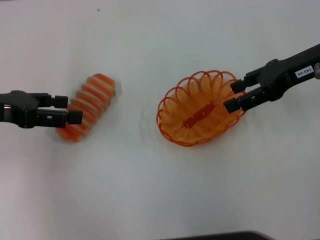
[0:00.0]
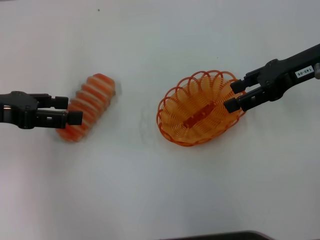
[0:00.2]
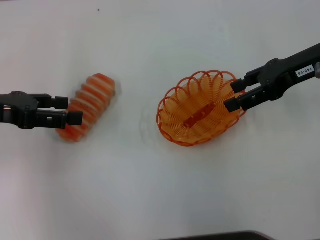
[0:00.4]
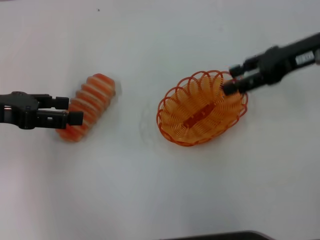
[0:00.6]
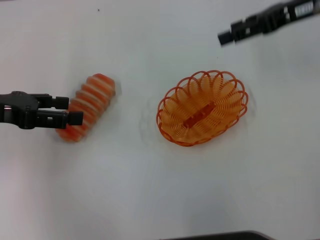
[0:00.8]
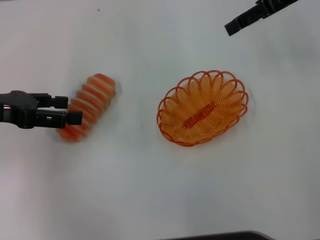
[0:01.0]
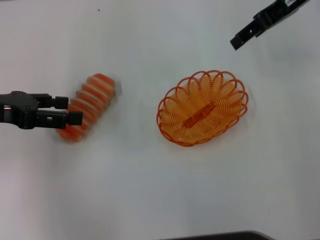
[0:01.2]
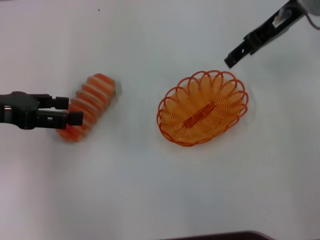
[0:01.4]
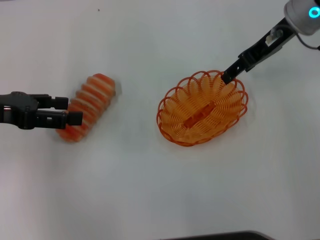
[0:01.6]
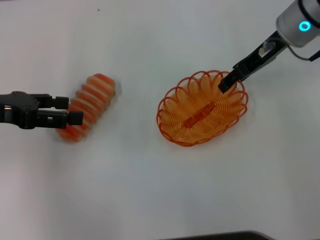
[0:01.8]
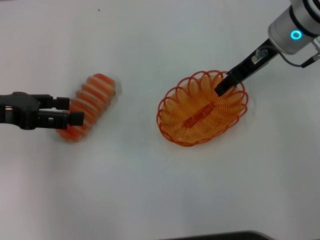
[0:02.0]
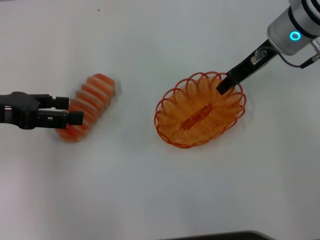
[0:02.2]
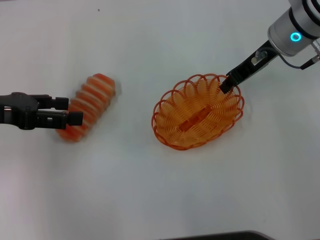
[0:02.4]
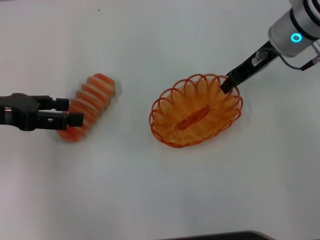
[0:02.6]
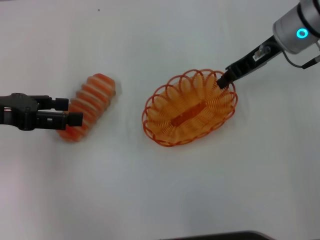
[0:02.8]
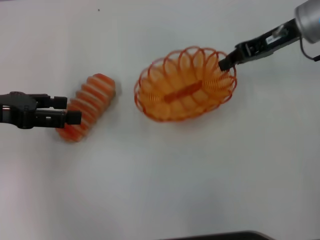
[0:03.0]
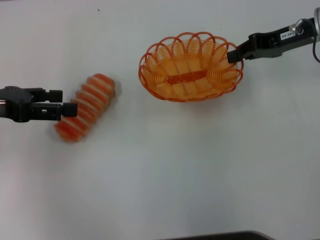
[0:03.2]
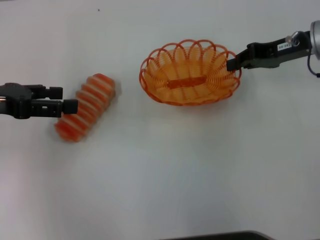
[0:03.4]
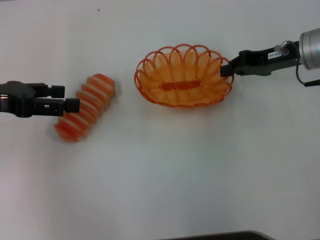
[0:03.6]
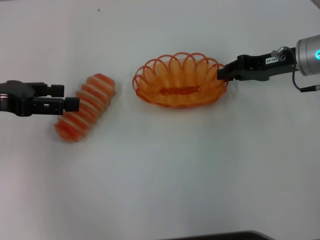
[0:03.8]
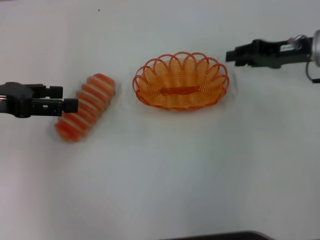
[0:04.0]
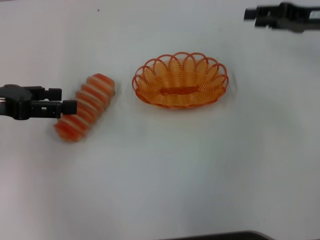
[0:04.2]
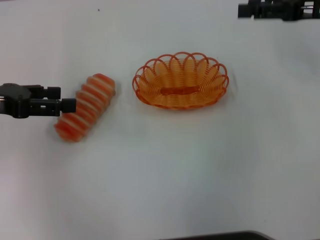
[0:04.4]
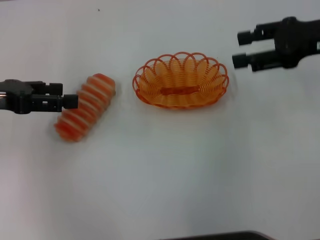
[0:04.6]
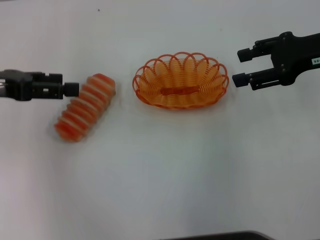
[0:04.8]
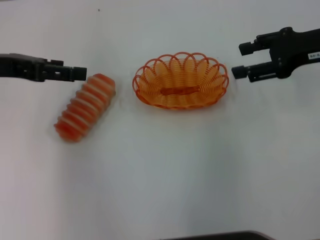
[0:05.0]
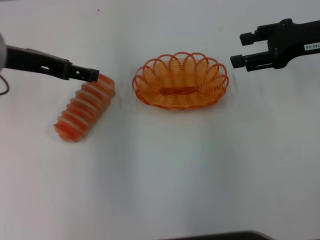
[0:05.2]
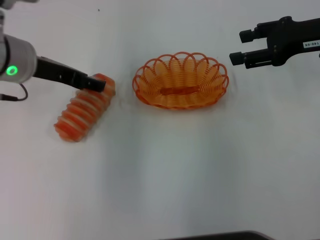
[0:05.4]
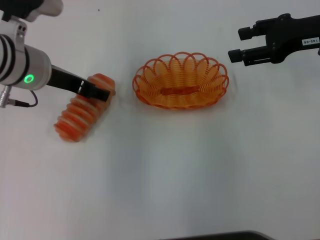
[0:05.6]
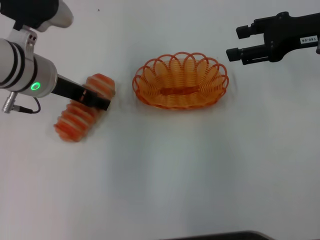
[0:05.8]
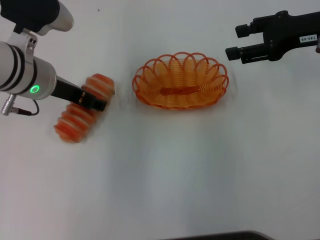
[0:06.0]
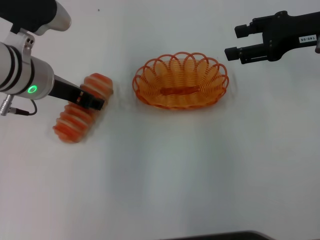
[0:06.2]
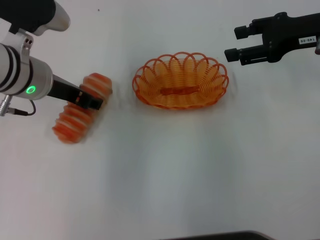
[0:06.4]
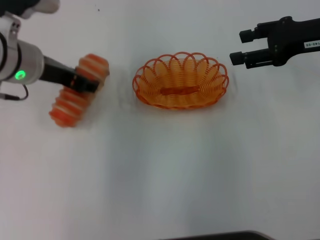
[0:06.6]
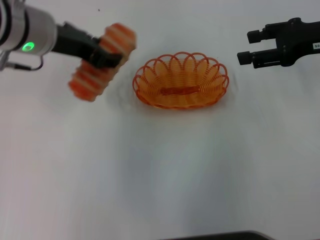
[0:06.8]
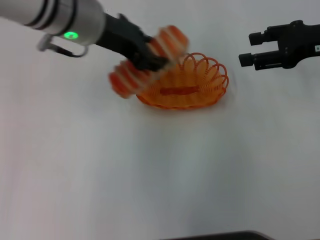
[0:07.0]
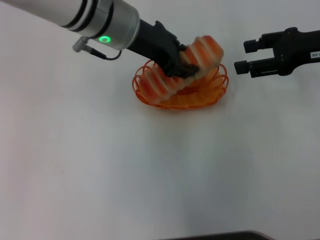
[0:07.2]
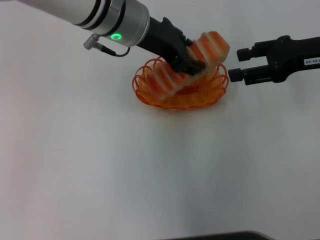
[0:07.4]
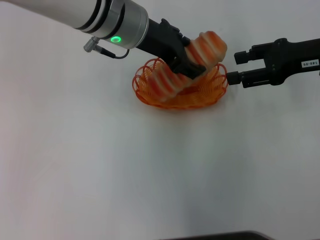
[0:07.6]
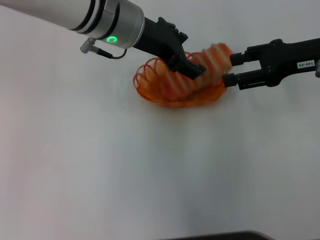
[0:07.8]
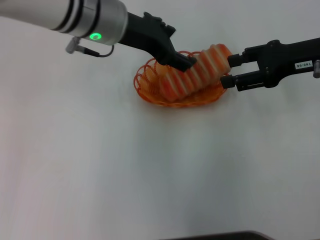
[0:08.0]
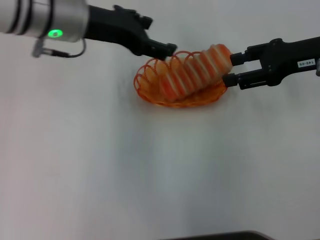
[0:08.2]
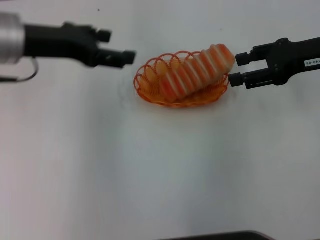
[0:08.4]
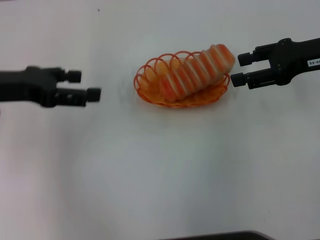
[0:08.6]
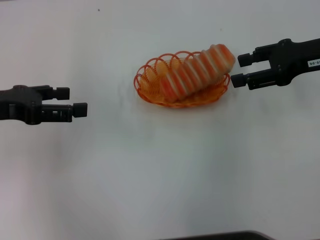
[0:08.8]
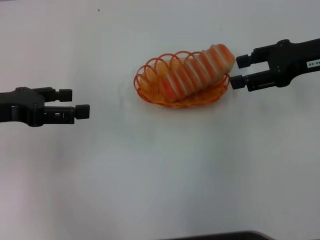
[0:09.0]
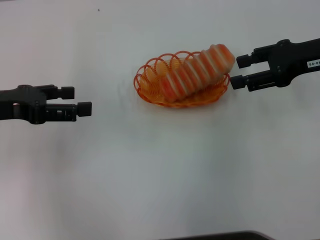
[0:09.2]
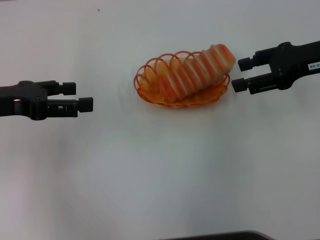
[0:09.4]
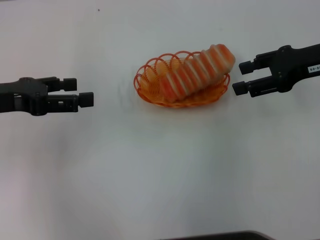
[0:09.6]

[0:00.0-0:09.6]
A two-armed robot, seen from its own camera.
Step, 0:00.0 to 0:02.8: Pick up the basket with the right gripper.
Step, 0:03.0 to 0:03.8: Place the basket in the center of view with the right gripper.
Step, 0:04.0 to 0:06.4: Pick up the long bread with the left gripper.
Step, 0:06.8 to 0:08.2: Place the long bread into the basket with the left gripper.
0:00.0 to 0:01.6: The right gripper moves forward, some 5 cm.
0:01.6 to 0:03.2: The right gripper travels to the right by approximately 5 cm, and closes.
0:03.2 to 0:04.8: The right gripper goes about 5 cm backward, travels downward and back again, about 5 cm each way, and opens.
0:04.8 to 0:06.4: The left gripper goes about 10 cm to the right.
0:06.4 to 0:08.0: The left gripper moves to the right, about 10 cm, and opens its fingers.
0:08.0 to 0:09.6: The left gripper goes approximately 20 cm to the left and backward.

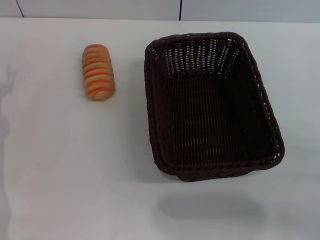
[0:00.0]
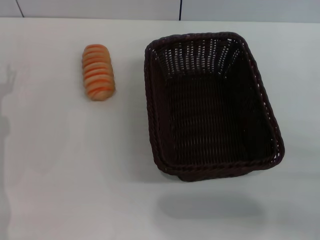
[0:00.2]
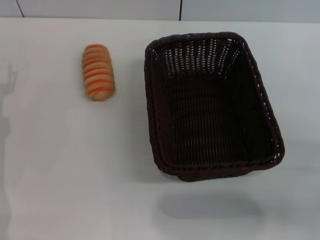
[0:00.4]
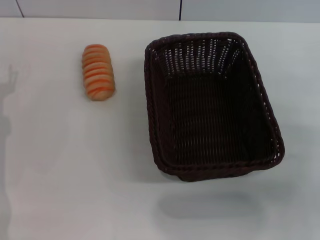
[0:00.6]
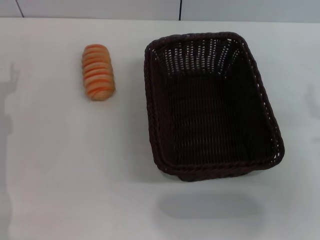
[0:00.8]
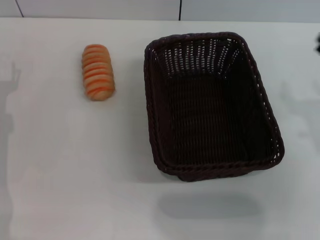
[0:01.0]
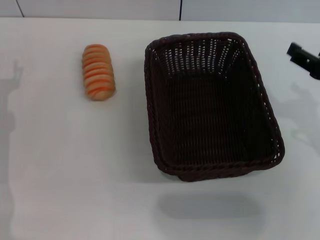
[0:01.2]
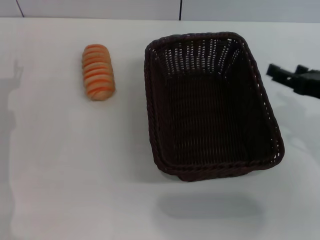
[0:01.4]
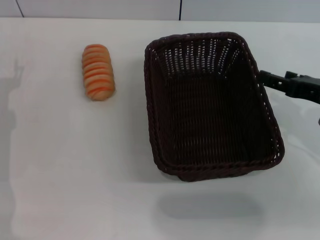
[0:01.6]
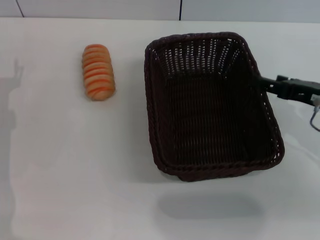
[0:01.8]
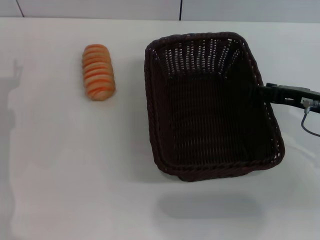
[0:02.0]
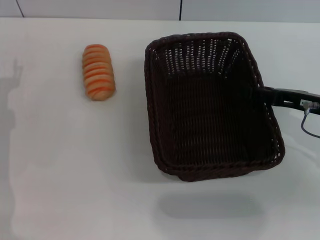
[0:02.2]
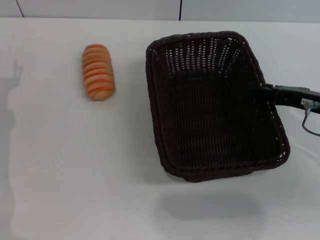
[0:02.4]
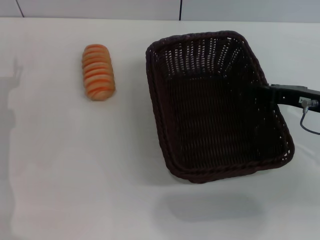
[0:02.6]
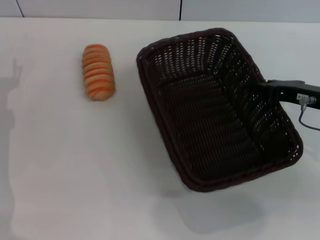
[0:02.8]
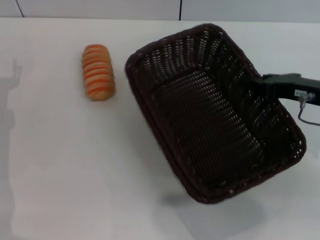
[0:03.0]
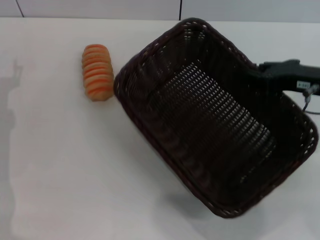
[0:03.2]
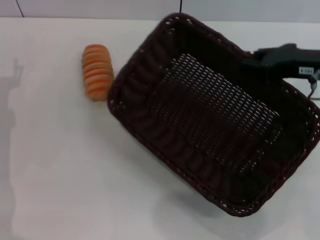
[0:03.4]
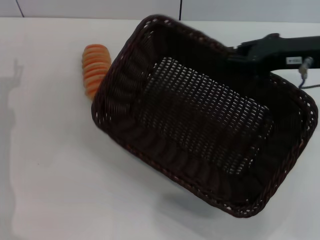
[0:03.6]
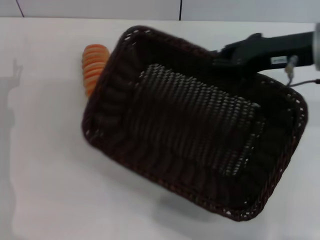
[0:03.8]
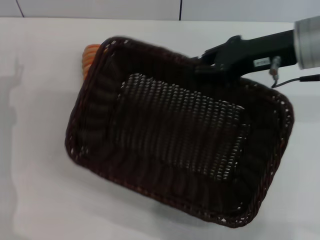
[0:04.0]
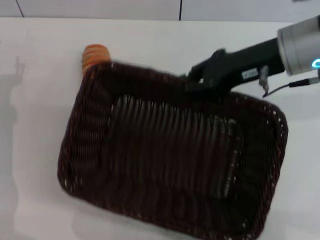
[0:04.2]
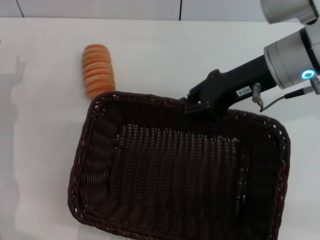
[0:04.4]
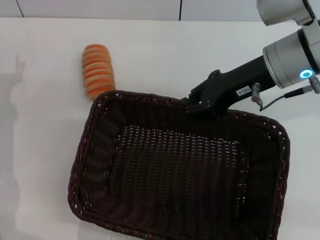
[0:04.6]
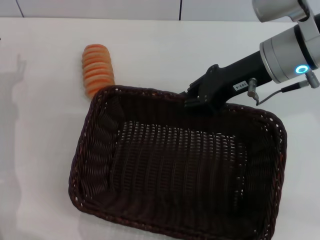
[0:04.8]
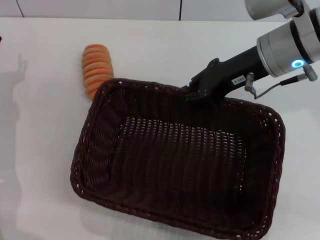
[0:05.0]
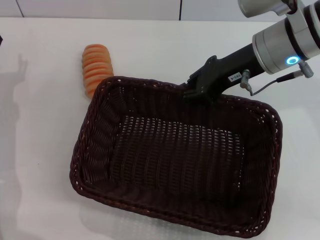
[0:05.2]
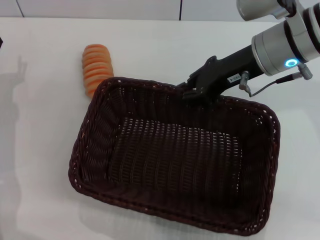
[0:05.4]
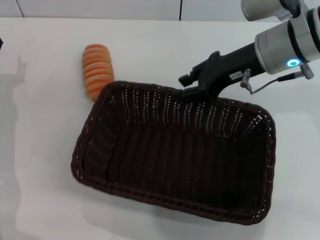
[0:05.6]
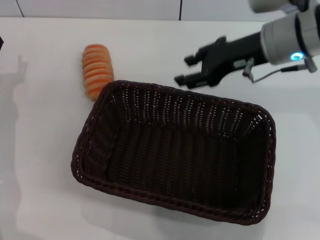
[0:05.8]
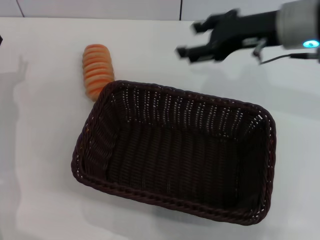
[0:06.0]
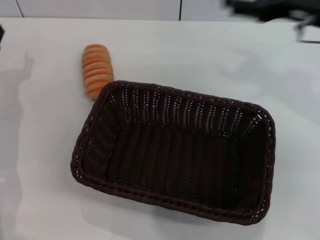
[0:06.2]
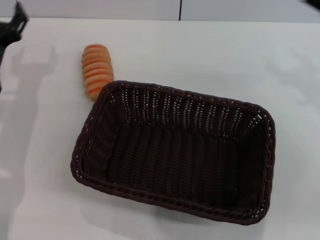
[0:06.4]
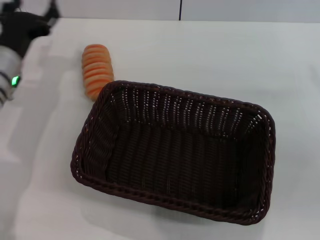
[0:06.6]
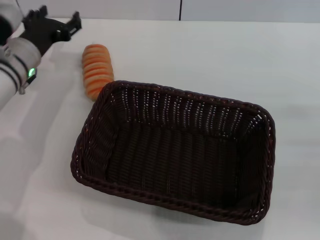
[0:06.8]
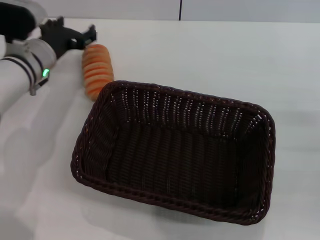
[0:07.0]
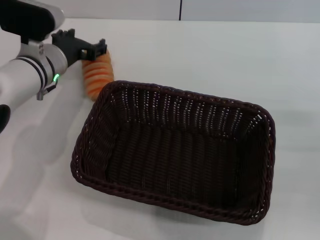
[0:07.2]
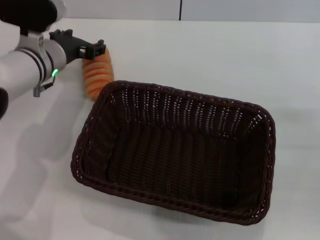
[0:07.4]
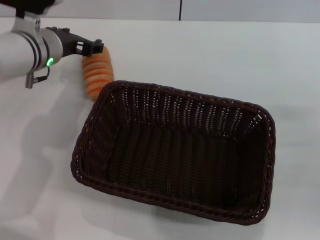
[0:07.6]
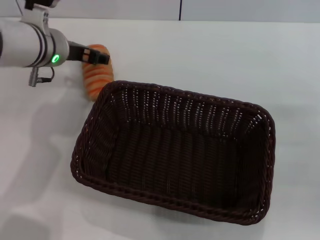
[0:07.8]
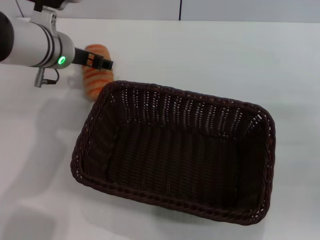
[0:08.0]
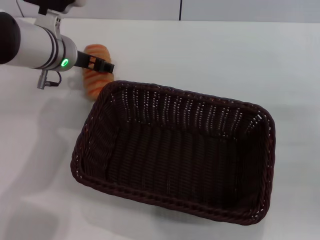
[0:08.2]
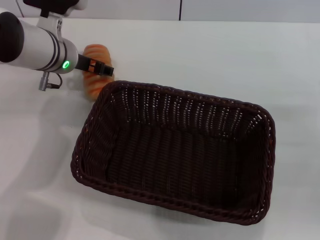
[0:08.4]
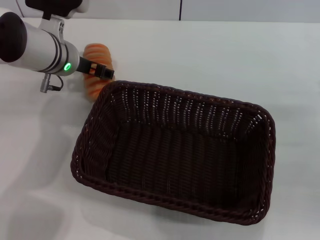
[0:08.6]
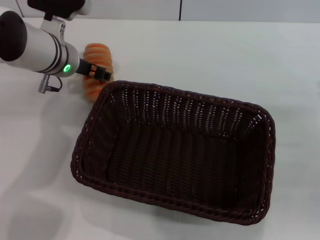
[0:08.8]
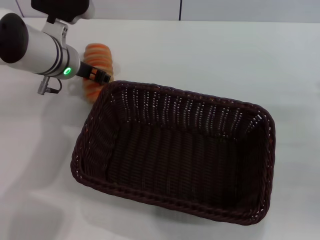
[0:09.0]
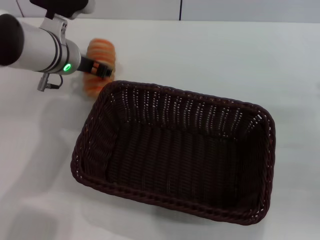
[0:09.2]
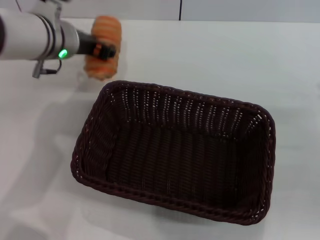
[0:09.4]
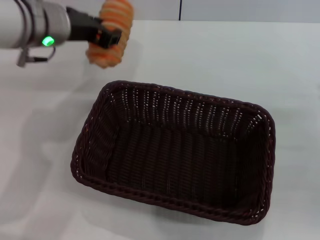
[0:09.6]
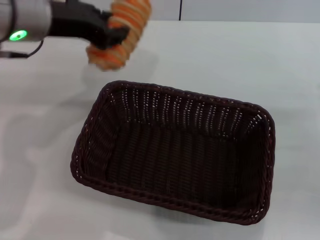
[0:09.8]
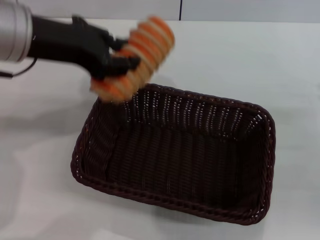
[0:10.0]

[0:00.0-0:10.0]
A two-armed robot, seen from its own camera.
Step, 0:00.0 to 0:03.2: Pick up the dark basket with the right gripper.
Step, 0:03.4 to 0:05.6: Place the dark basket in the center of view with the right gripper.
Step, 0:06.0 to 0:09.4: Pick up the long bread with the left gripper.
0:00.0 to 0:01.4: The right gripper heads forward and upward, covering about 15 cm.
0:01.4 to 0:02.8: The right gripper moves about 5 cm, and closes up.
0:02.8 to 0:04.2: The right gripper moves to the left and upward, approximately 10 cm.
0:04.2 to 0:05.8: The right gripper opens its fingers.
0:05.8 to 0:07.2: The left gripper goes some 10 cm to the right and forward, while the right gripper shifts roughly 25 cm to the right, backward and downward, and opens.
0:08.6 to 0:10.0: The left gripper travels upward and backward by some 20 cm, and closes its fingers.

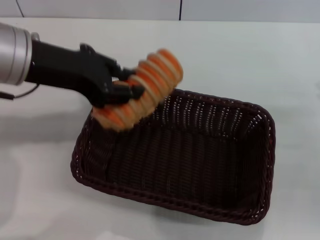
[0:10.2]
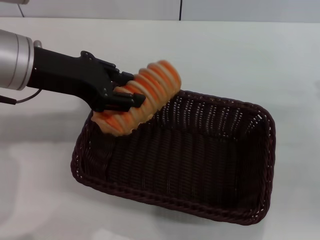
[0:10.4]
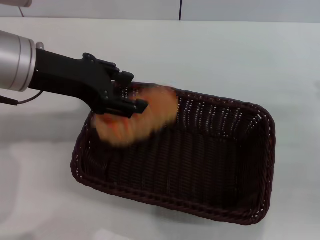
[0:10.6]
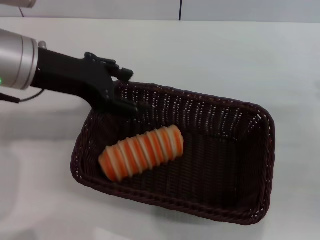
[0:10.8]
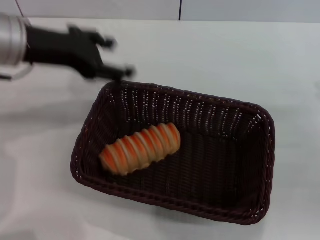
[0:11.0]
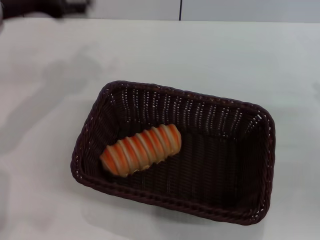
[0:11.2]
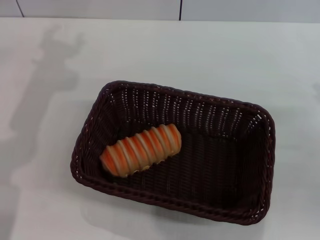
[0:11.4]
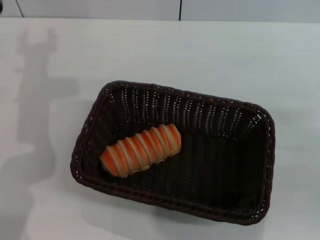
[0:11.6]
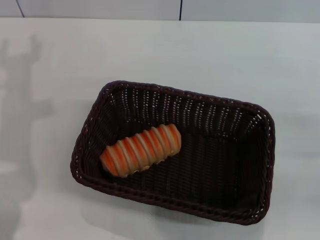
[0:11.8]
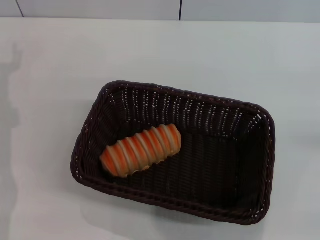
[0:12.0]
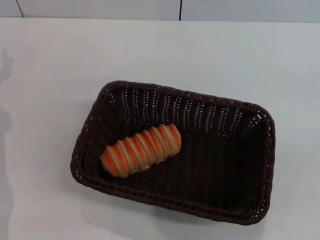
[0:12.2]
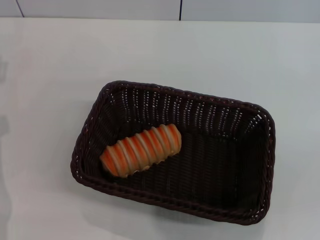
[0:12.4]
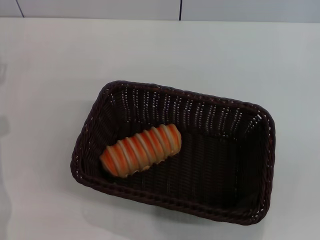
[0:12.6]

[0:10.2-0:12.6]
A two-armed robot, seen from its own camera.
Step, 0:10.2 to 0:10.8: Place the long bread into the dark basket with the left gripper.
0:10.2 to 0:11.4: The left gripper goes some 10 cm forward, to the left and downward, and opens its fingers.
